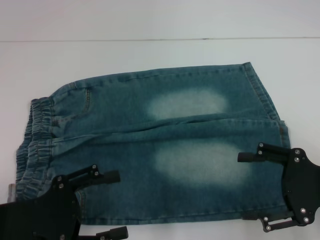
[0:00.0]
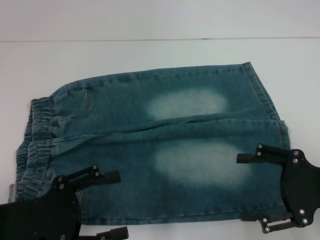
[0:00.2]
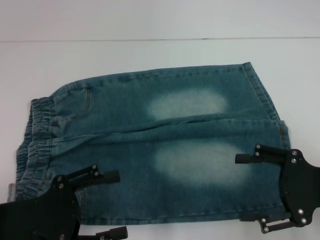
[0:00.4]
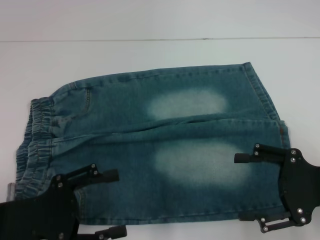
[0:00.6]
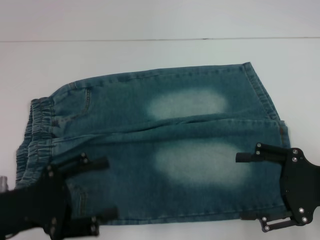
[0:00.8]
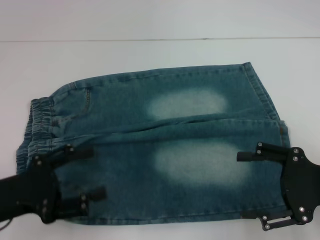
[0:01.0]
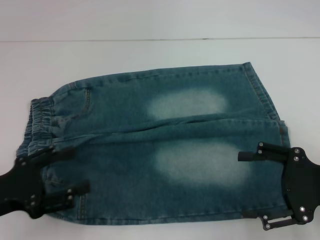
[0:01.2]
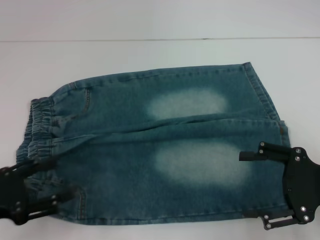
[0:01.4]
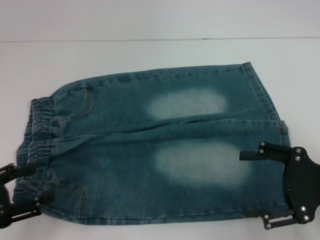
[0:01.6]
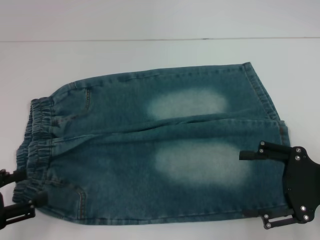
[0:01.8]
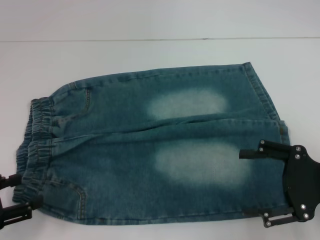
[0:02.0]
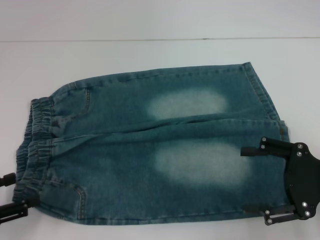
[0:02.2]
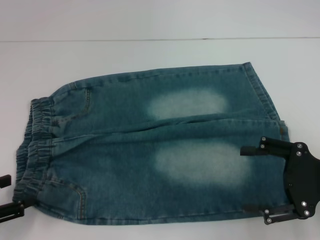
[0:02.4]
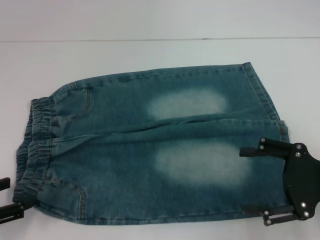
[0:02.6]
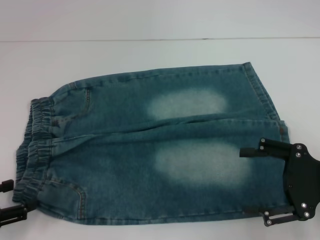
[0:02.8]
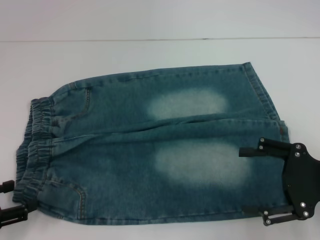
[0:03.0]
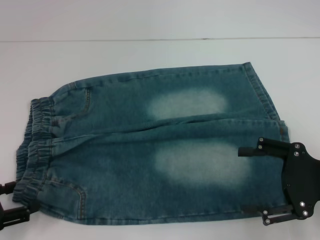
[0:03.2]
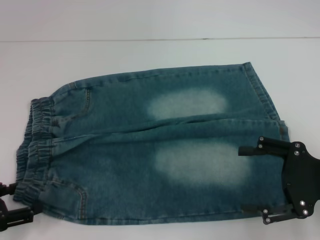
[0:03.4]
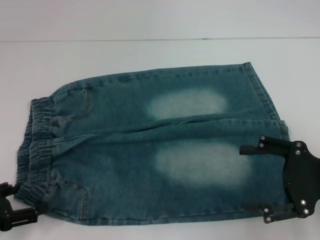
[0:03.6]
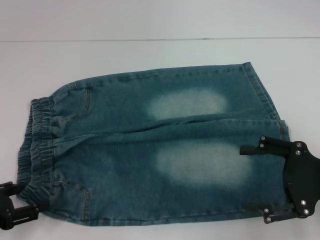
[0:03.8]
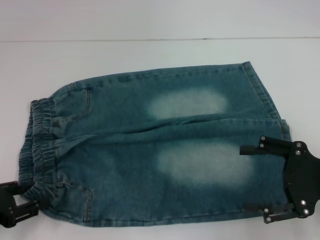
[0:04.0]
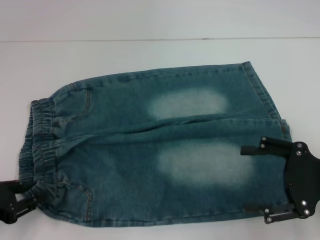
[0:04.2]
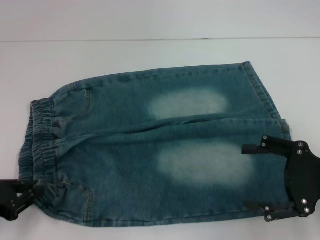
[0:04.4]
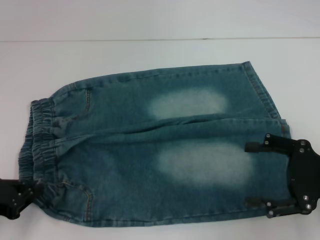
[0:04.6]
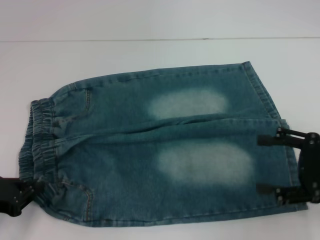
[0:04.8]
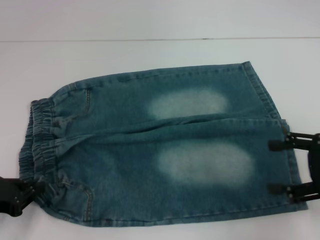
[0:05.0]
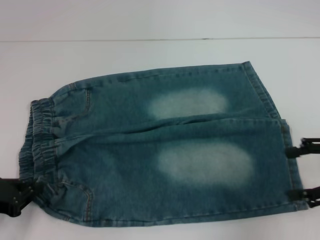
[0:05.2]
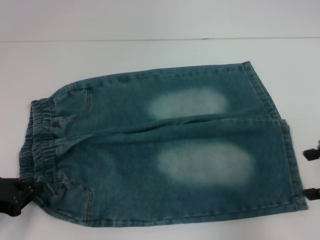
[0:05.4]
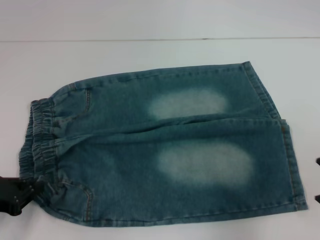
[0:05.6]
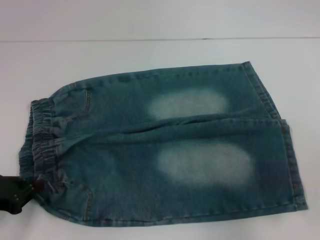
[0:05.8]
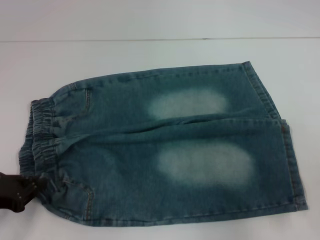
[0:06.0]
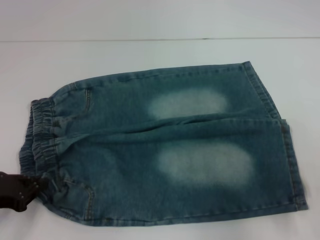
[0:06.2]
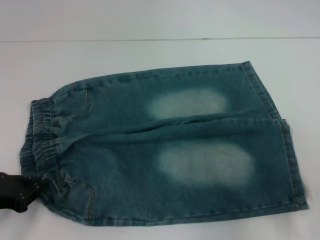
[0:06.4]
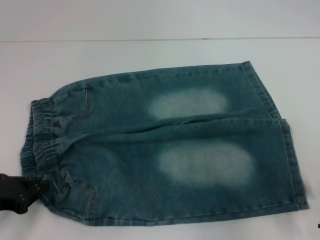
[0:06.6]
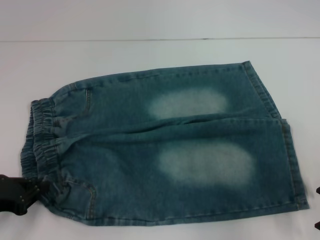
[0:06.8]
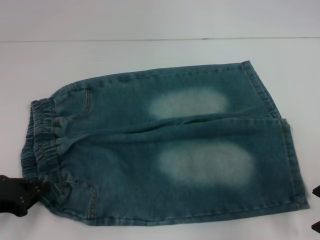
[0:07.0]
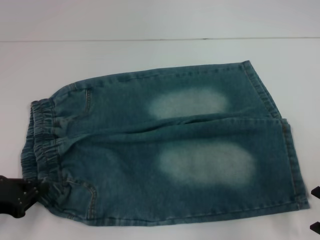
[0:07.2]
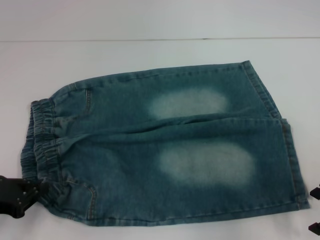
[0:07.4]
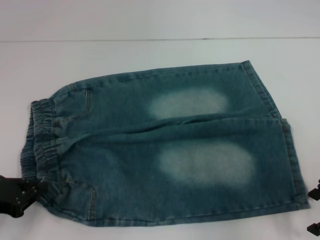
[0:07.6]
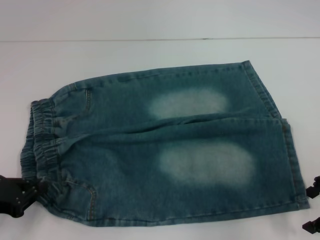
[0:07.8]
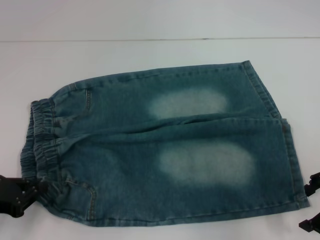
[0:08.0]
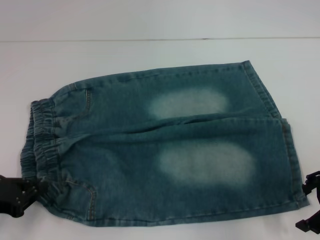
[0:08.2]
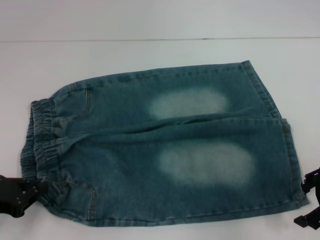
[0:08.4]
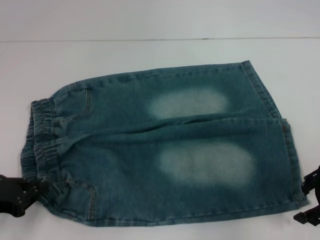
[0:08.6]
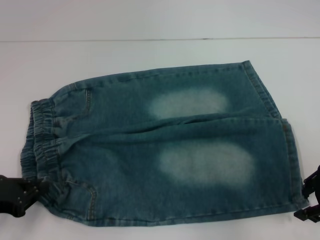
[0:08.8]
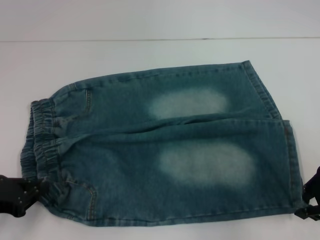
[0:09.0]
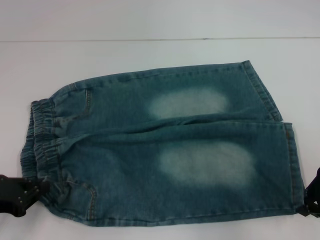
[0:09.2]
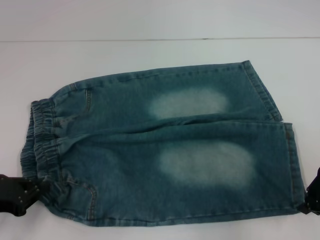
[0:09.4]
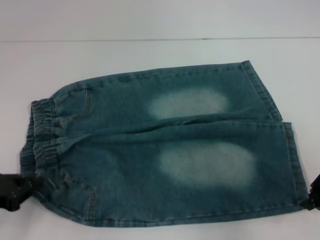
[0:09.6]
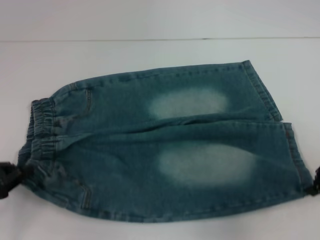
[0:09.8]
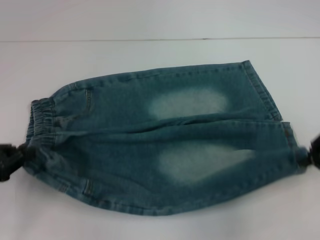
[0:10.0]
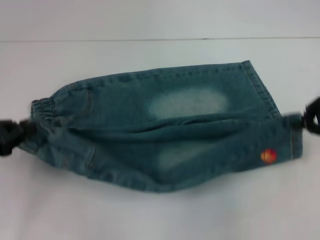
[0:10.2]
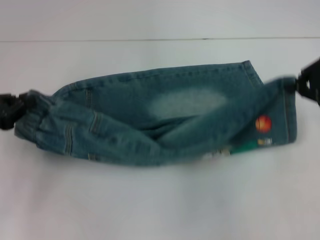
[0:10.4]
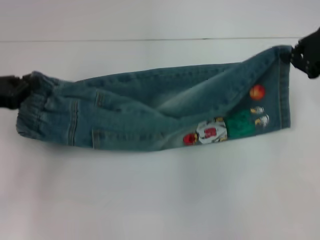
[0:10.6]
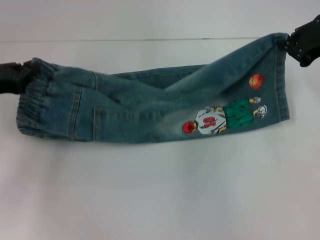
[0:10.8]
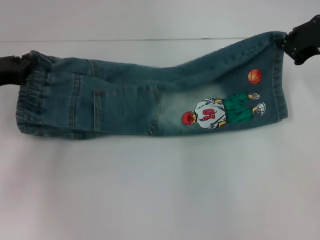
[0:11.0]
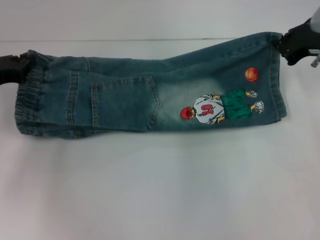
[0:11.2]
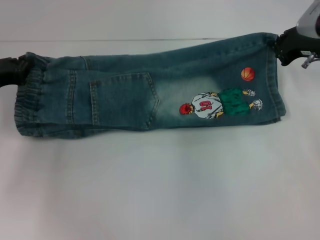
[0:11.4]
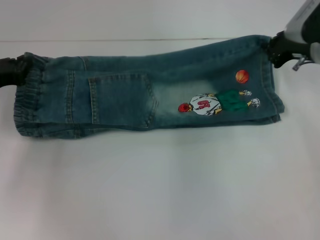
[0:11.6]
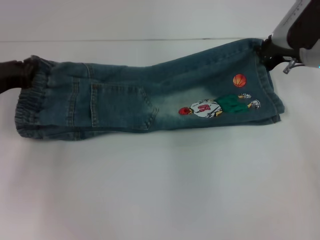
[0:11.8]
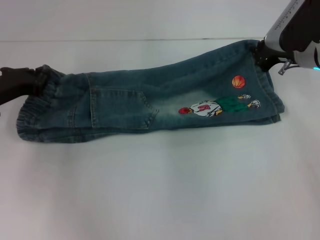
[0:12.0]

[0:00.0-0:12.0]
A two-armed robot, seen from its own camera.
Step, 0:00.0 to 0:04.0: Hold the lower left waistband with your left hand.
Step, 0:04.2 to 0:08.8: Grab the lower right pant leg with your right hand.
0:00.0 to 0:01.6: The left gripper travels to the left by about 10 cm.
0:01.6 to 0:03.0: The grippers make only small movements.
0:03.0 to 0:04.4: The left gripper closes up.
0:04.4 to 0:06.0: The right gripper shifts approximately 5 cm upward. The left gripper closes.
0:06.0 to 0:07.6: The grippers make only small movements.
0:07.6 to 0:09.0: The right gripper closes up.
0:09.0 to 0:10.4: The two grippers go some 10 cm upward and forward. The right gripper closes.
0:10.4 to 0:12.0: The left gripper heads forward, covering roughly 10 cm. Meanwhile the right gripper goes approximately 15 cm forward, downward and to the left.

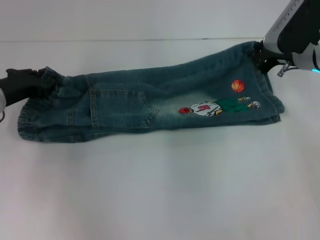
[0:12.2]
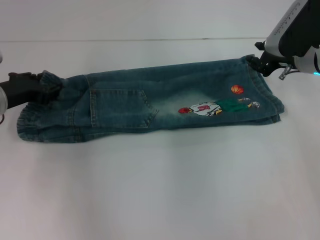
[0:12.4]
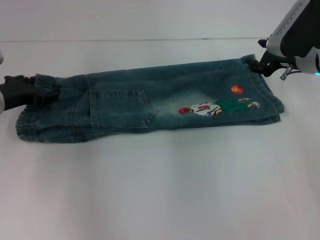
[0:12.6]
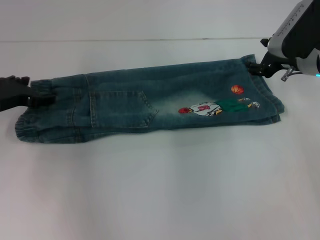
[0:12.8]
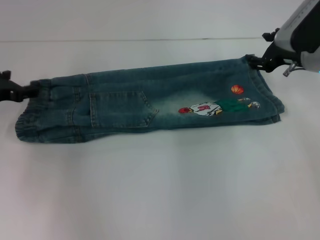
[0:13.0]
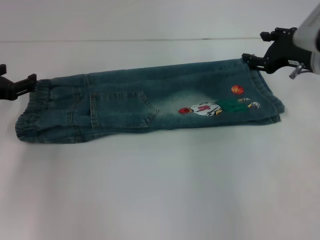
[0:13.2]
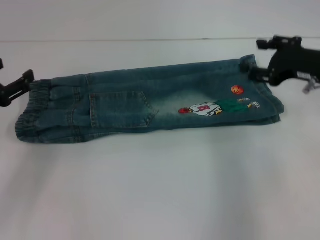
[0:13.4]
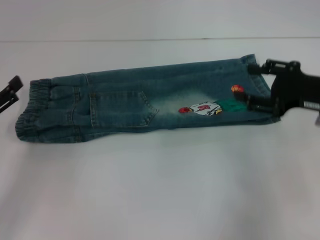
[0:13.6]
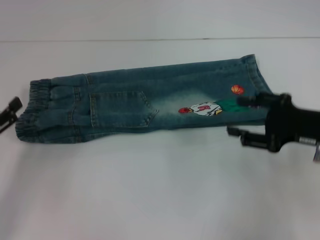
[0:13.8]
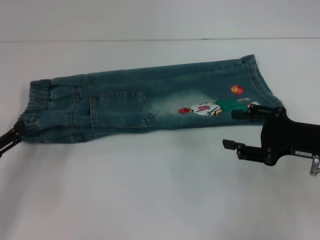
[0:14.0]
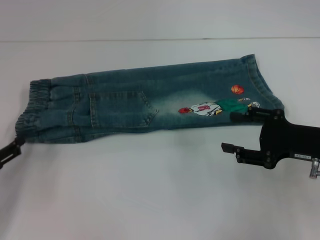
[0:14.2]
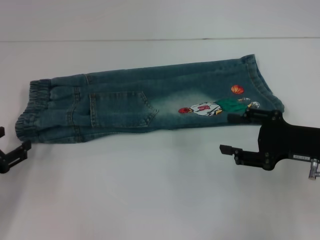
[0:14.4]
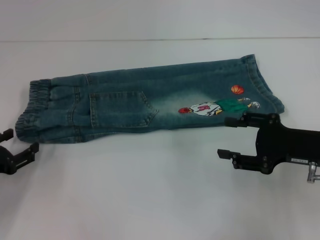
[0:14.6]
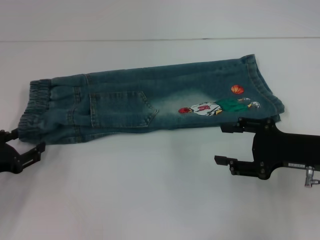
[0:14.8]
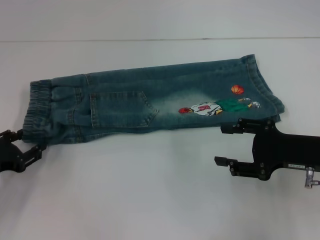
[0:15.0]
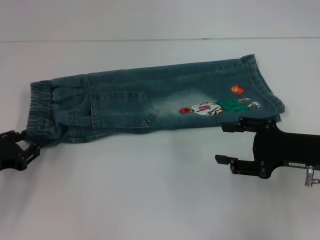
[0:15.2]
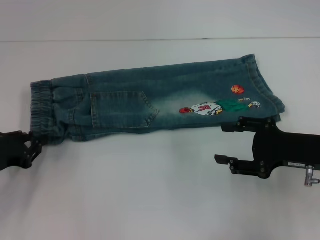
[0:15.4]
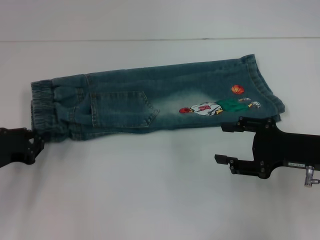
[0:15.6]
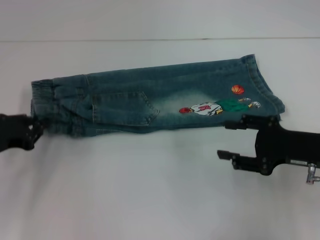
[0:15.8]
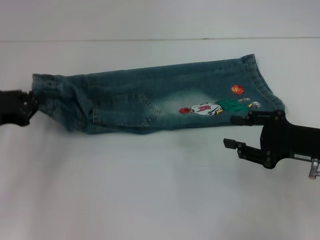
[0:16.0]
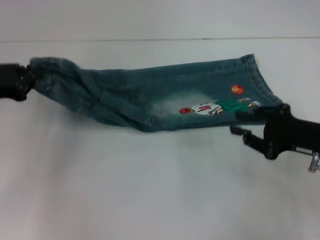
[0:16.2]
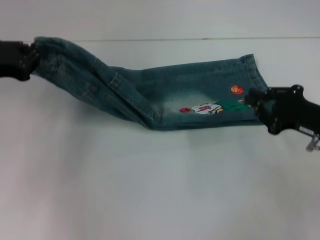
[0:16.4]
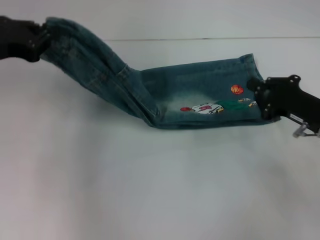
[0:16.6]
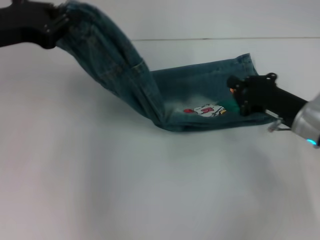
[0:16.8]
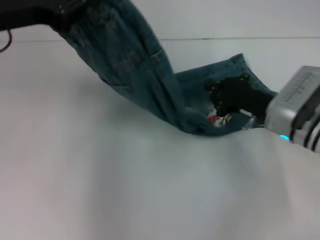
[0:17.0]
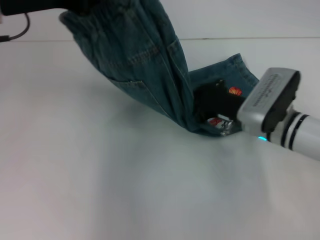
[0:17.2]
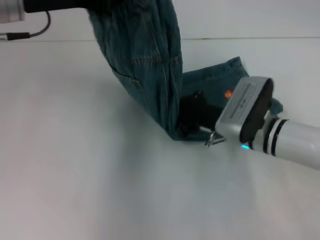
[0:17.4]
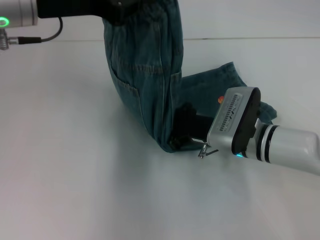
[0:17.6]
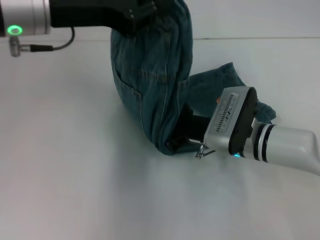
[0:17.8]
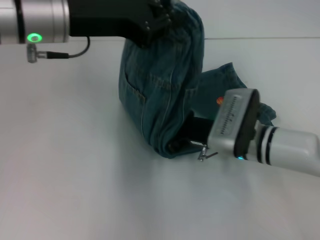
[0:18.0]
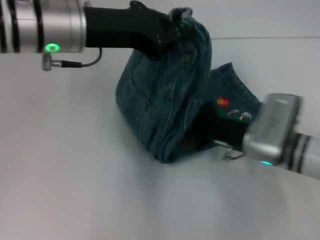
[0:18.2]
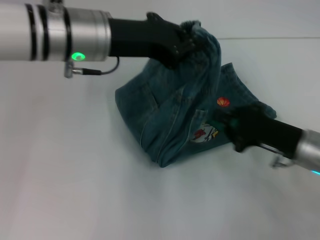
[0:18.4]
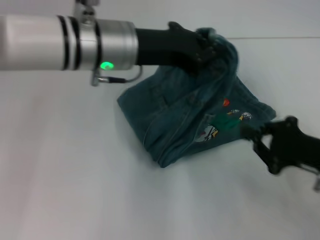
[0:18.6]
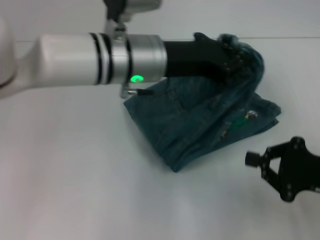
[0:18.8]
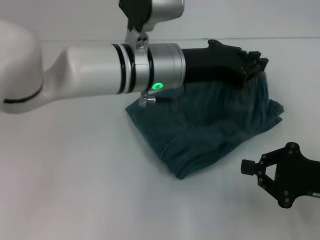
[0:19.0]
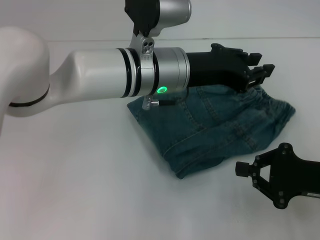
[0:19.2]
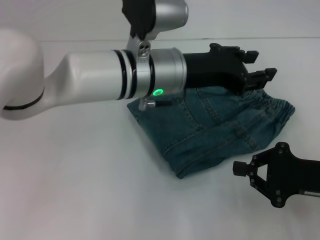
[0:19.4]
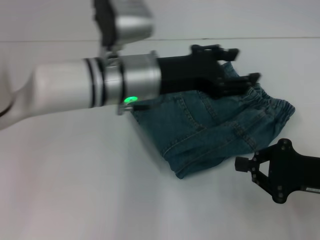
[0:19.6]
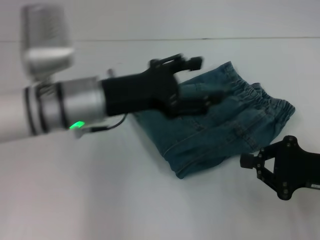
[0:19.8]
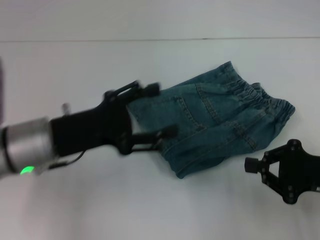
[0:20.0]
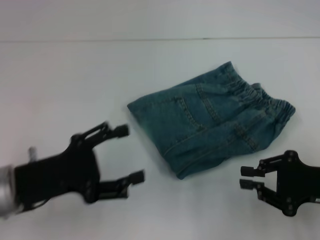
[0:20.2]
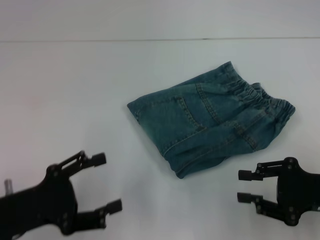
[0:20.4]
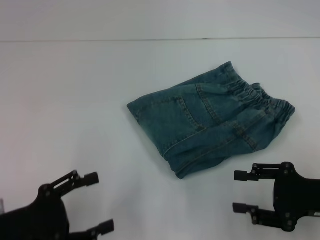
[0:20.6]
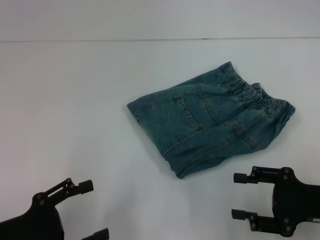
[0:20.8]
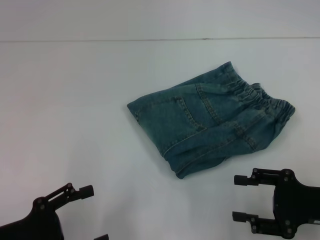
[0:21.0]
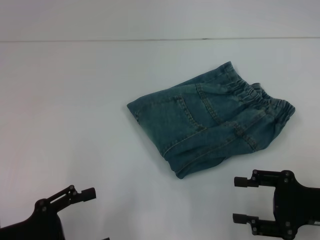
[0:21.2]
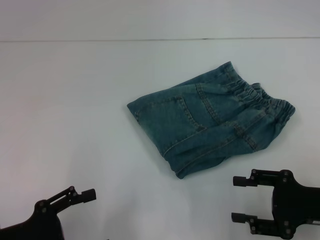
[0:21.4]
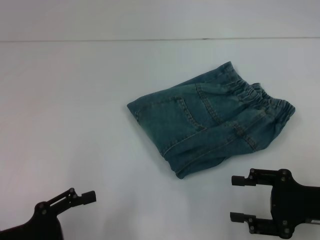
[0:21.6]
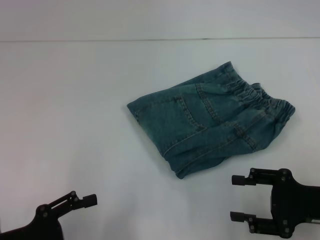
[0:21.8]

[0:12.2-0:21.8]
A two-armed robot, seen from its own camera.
Step, 0:13.0 to 0:15.2: Hold the waistband with your left hand.
Step, 0:15.4 to 0:18.2: Press the middle of the pants with your right hand.
Step, 0:18.4 to 0:19.0: Fold to the right with your left hand.
0:12.2 to 0:13.8: The right gripper heads backward, covering roughly 15 cm, and opens up, while the left gripper moves backward and to the left, some 15 cm, and opens up.
0:13.8 to 0:15.4: The left gripper closes its fingers.
0:15.4 to 0:17.0: The left gripper moves upward, approximately 20 cm, and closes its fingers; the right gripper heads forward and to the left, covering approximately 10 cm, and closes up.
0:17.0 to 0:18.6: The left gripper is displaced to the right by about 15 cm. Meanwhile the right gripper goes approximately 10 cm backward and to the right.
0:18.6 to 0:20.2: The left gripper shifts about 20 cm to the left, backward and downward, and opens.
0:20.2 to 0:21.8: The right gripper opens its fingers. The left gripper goes about 10 cm backward.
